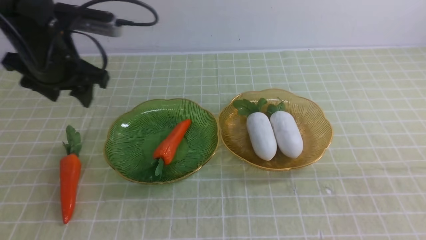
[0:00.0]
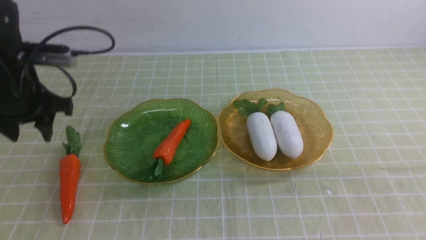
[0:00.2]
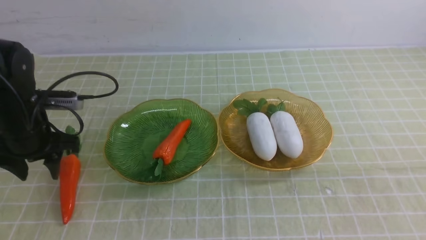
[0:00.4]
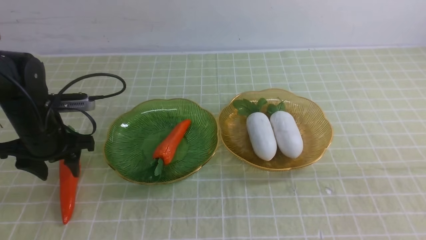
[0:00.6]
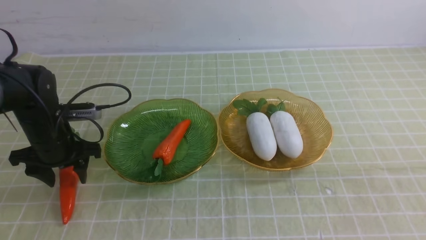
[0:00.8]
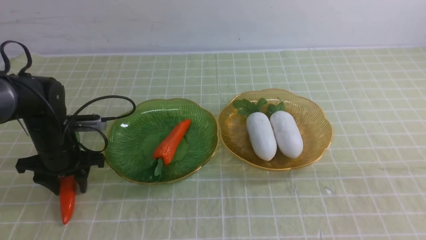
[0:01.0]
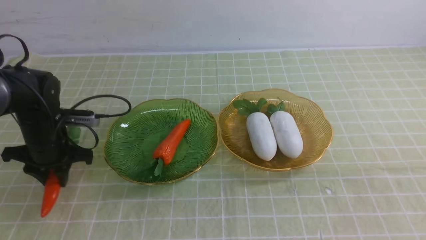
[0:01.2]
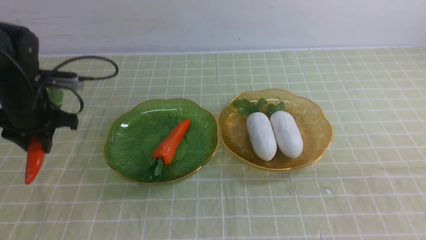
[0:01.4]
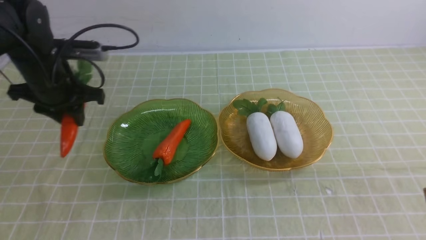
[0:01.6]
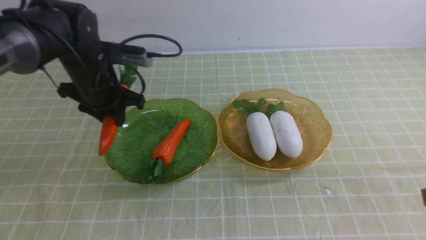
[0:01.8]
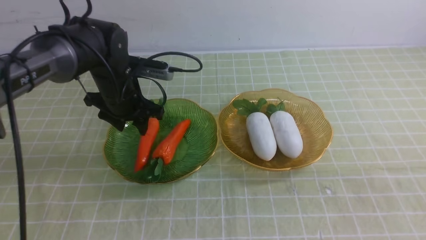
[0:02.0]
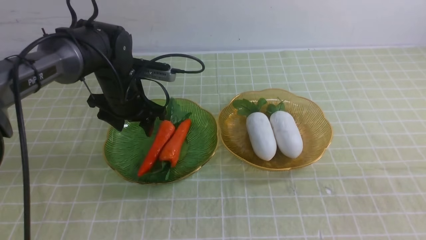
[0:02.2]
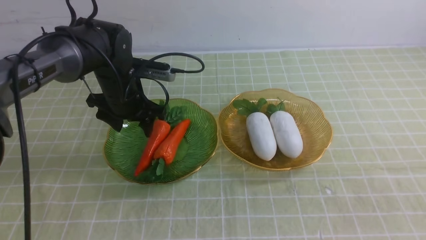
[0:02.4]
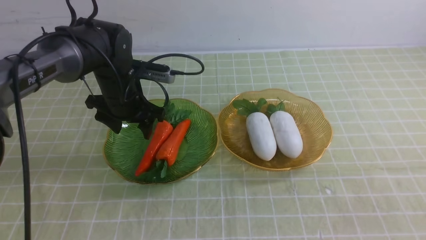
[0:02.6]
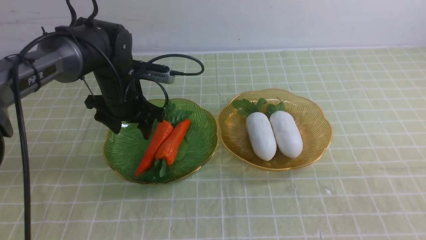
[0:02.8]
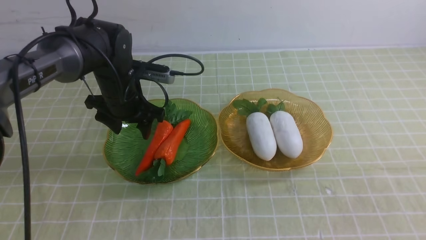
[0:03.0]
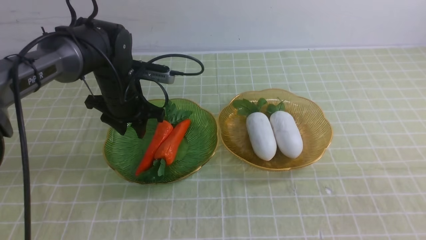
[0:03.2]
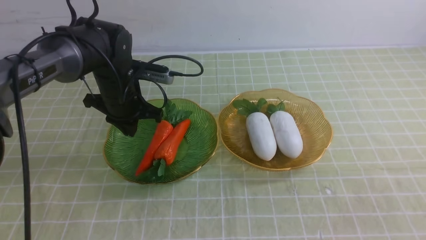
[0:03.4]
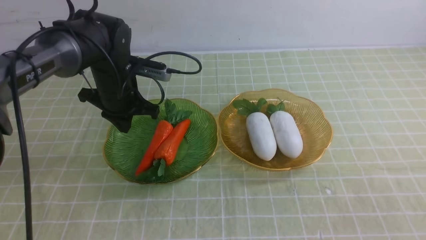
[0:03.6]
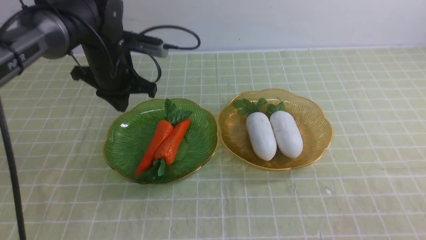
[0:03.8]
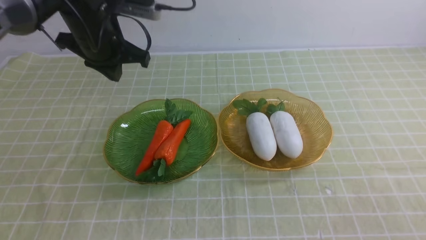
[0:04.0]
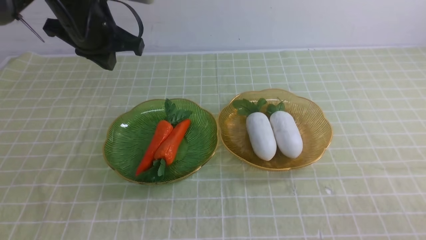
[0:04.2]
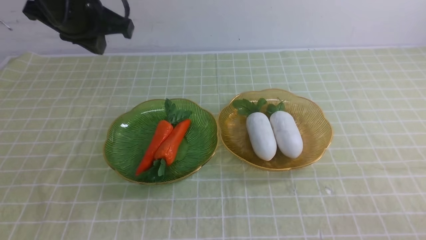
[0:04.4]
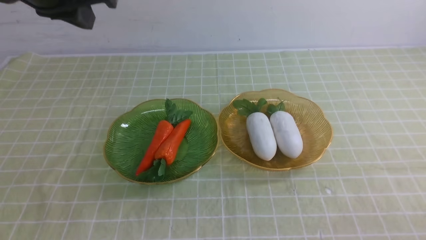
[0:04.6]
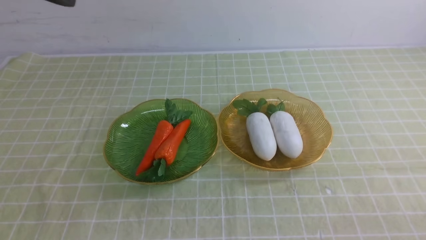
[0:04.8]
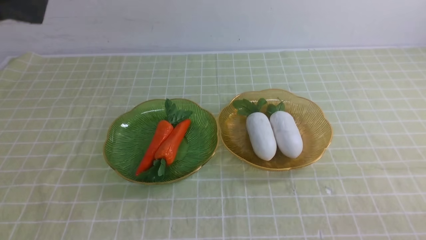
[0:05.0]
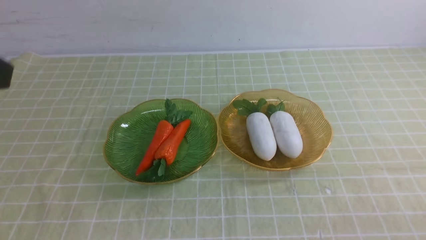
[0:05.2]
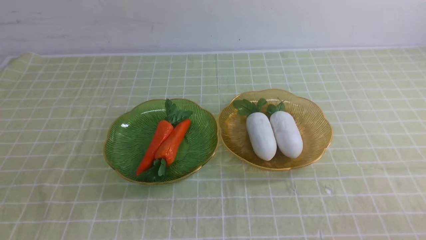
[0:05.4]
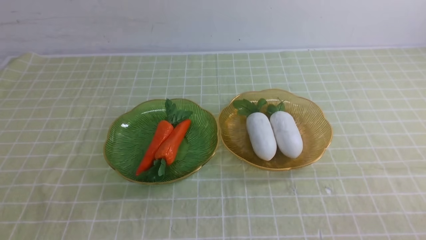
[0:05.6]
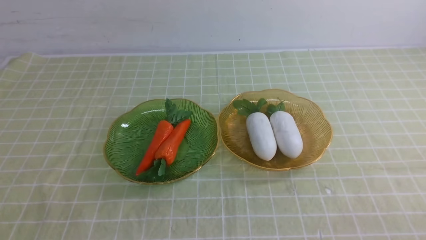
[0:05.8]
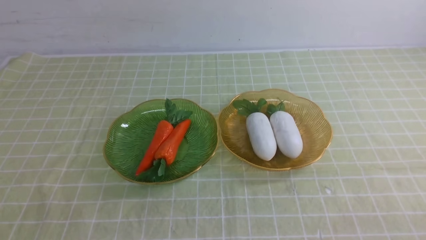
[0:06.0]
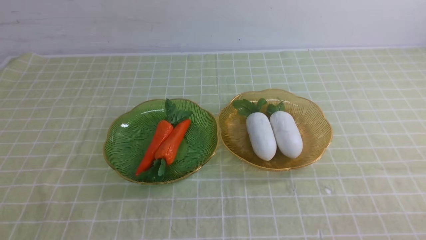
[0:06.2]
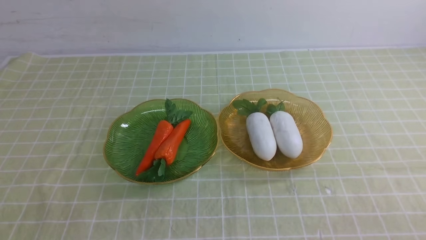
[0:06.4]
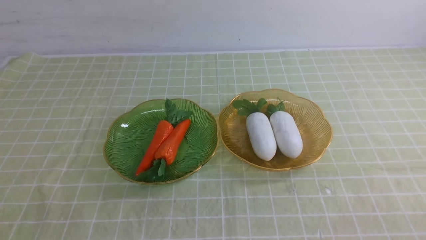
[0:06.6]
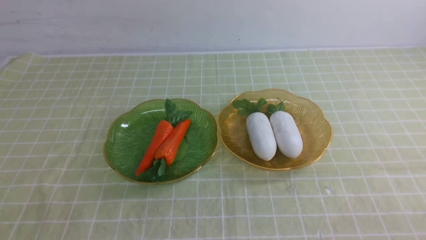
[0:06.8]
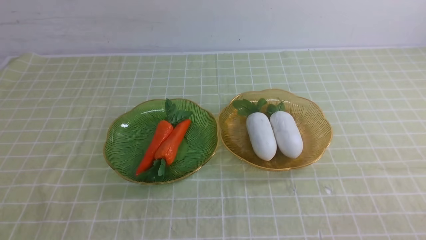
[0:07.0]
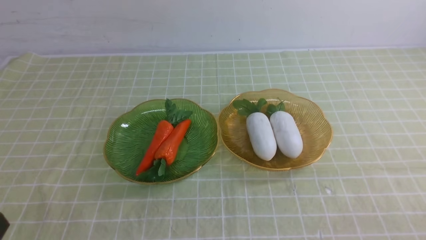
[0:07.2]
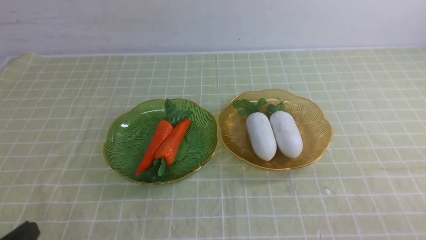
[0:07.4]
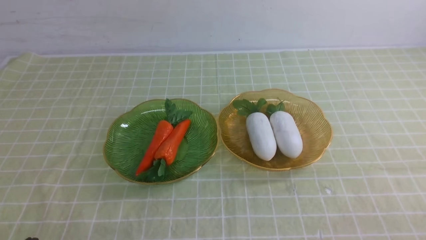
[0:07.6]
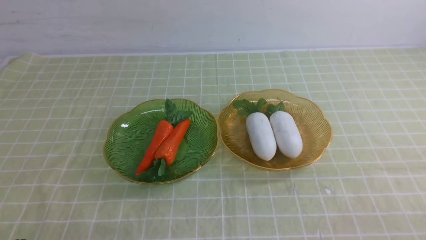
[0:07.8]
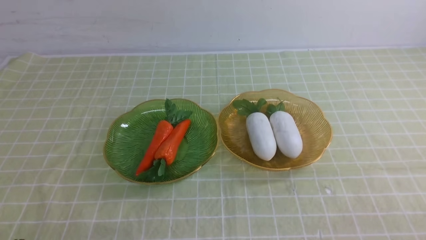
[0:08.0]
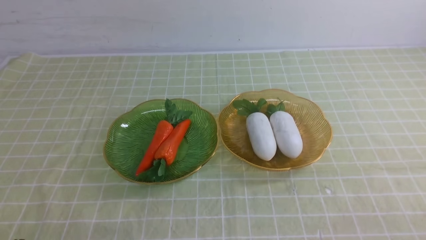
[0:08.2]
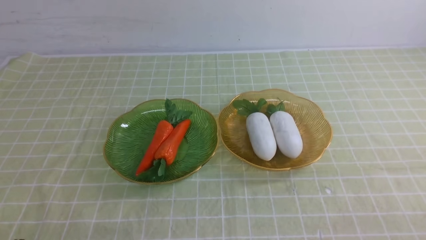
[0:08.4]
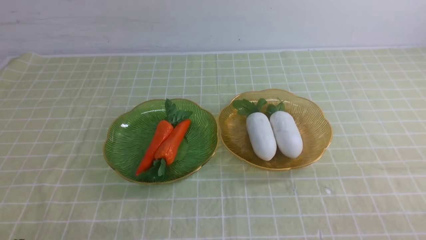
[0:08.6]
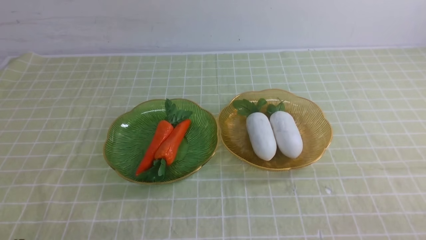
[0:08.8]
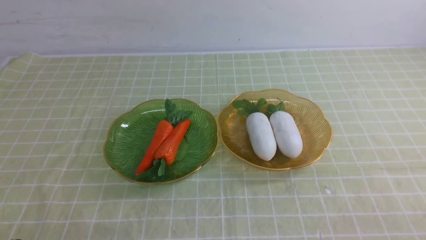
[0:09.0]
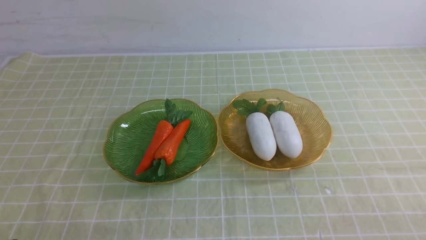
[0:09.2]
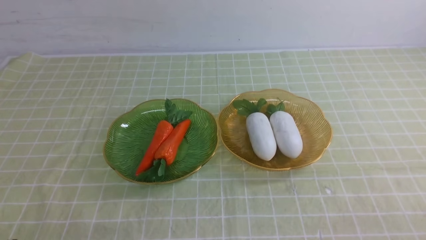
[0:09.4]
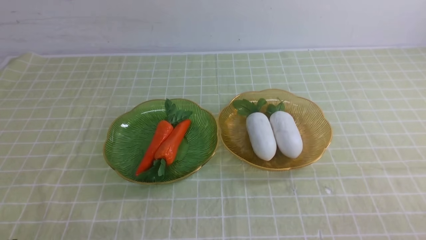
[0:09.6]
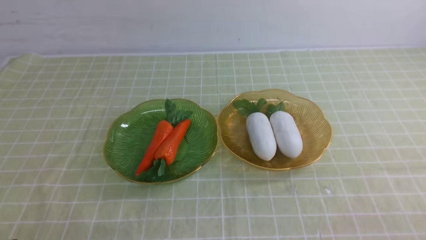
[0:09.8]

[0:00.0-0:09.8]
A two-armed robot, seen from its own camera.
Step, 0:01.4 to 0:06.0: use the left arm to grab a carrot and put it into the left plate.
0:00.0 to 0:01.4: The left gripper shifts roughly 5 cm downward, and closes its fingers.
0:01.4 to 0:02.8: The left gripper is displaced to the right by approximately 10 cm, and opens up. The right gripper moves backward, about 5 cm, and closes up.
0:02.8 to 0:04.2: The right gripper shifts roughly 10 cm downward; the left gripper goes roughly 15 cm upward, and closes up.
0:04.2 to 0:05.6: The left gripper shifts some 40 cm backward.
0:08.4 to 0:09.8: Neither gripper changes place.
